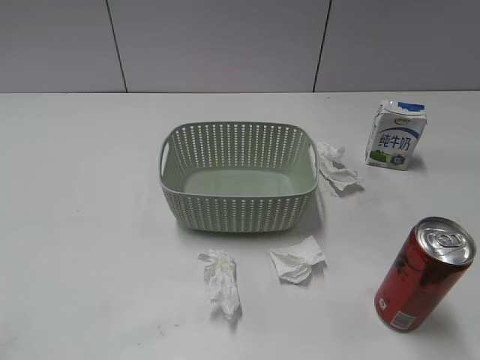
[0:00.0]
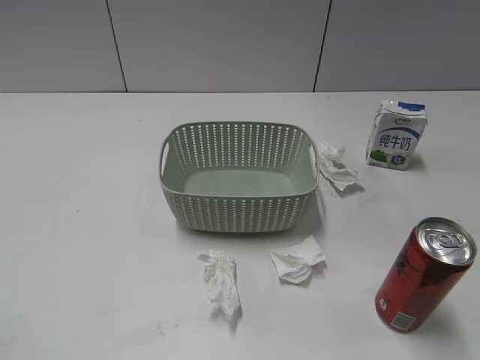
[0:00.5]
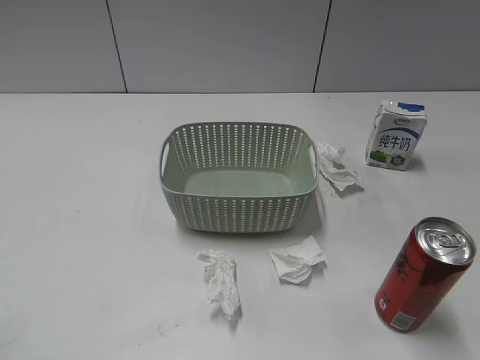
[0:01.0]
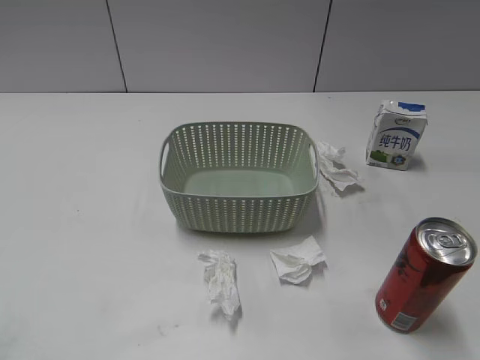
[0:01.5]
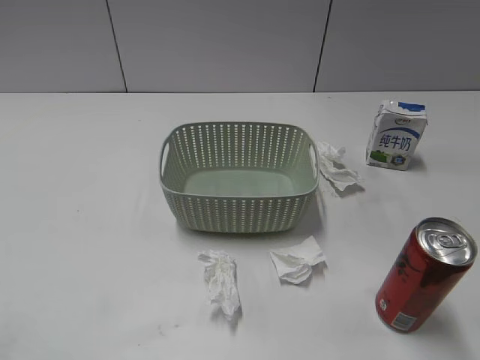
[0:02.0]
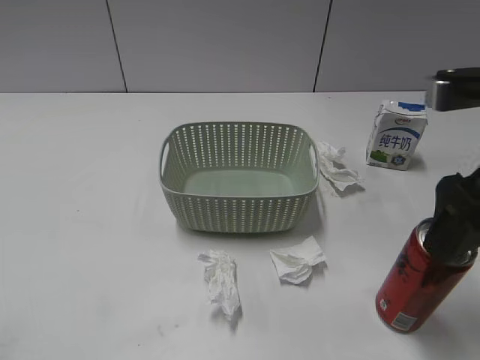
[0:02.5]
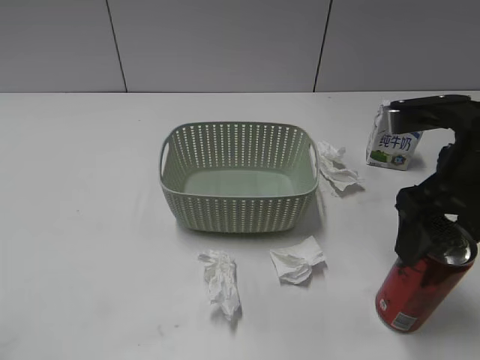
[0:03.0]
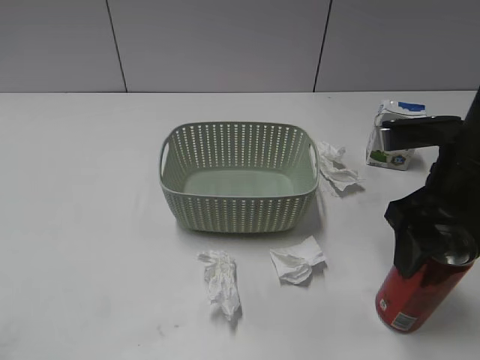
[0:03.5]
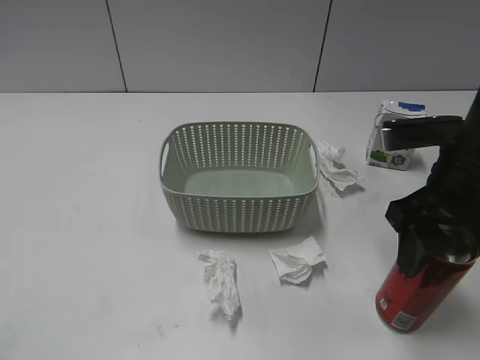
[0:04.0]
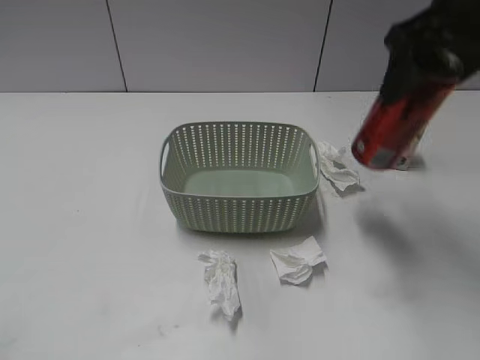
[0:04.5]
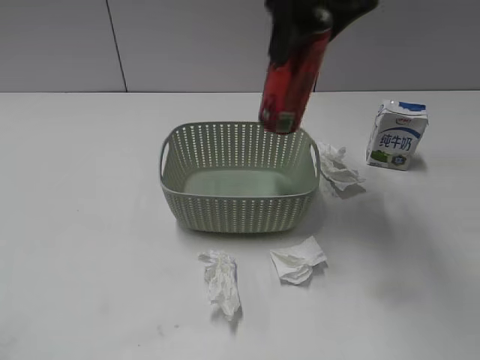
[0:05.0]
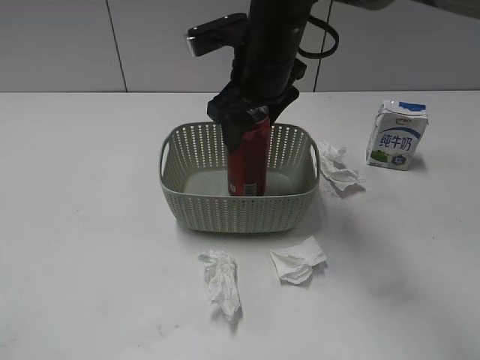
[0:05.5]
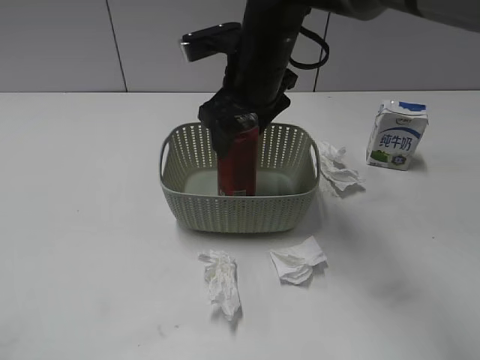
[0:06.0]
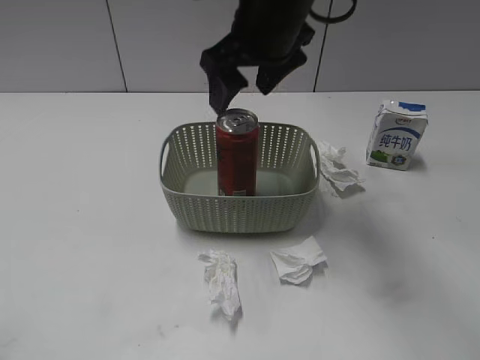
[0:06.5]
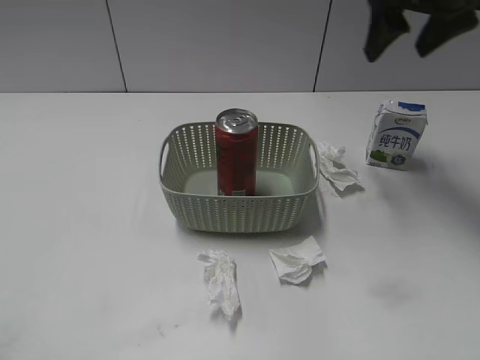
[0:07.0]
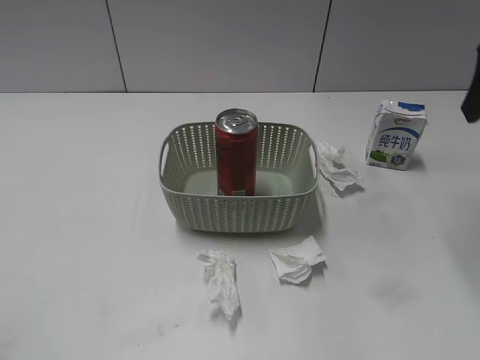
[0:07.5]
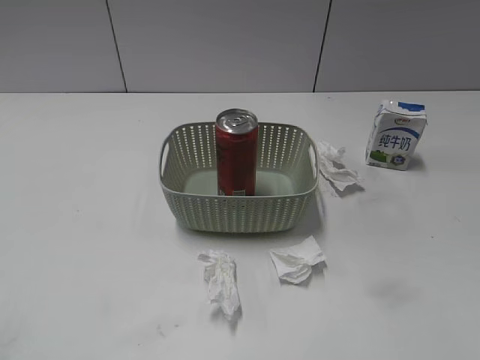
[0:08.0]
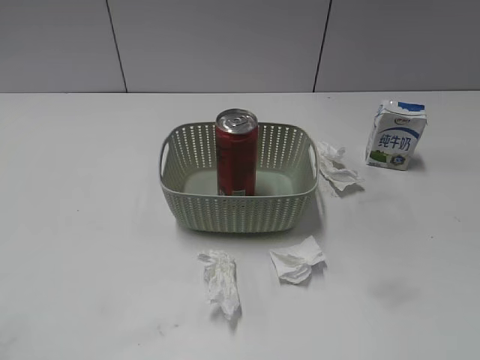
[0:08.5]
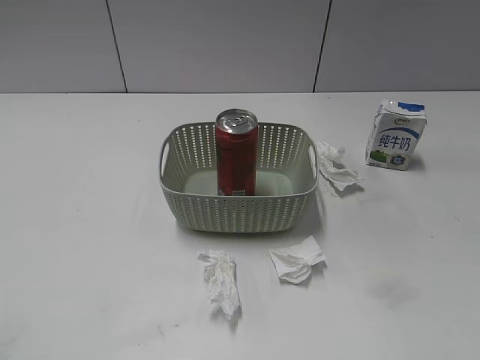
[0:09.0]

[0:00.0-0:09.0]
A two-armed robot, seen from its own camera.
Step, 0:02.5 to 0:04.0: Grasp the cola can with right gripper.
Step, 0:04.5 to 0:06.5: Place the cola can in the basket with right gripper.
0:02.0 to 0:04.5: The right gripper is displaced forward and to the left by roughly 20 cm, and closes.
0:04.5 to 0:07.0: The right gripper heads forward, covering approximately 10 cm, travels to the left and back again, roughly 15 cm each way, and opens up.
0:07.0 to 0:09.0: The right gripper travels backward by some 35 cm, and closes its fingers.

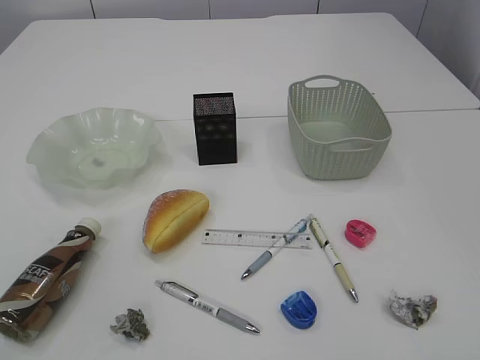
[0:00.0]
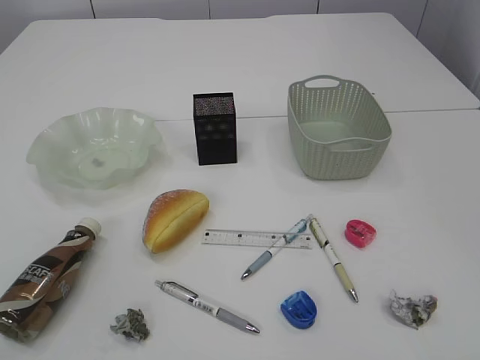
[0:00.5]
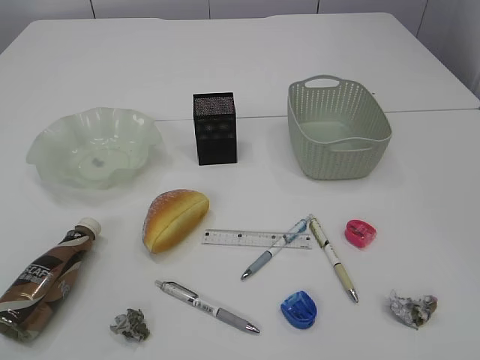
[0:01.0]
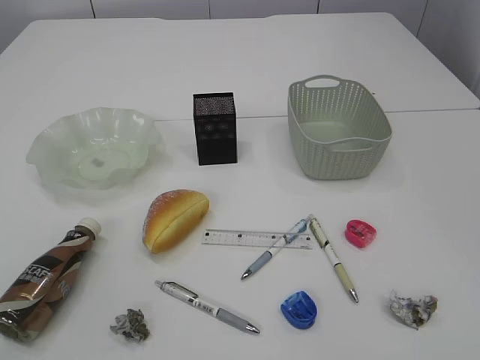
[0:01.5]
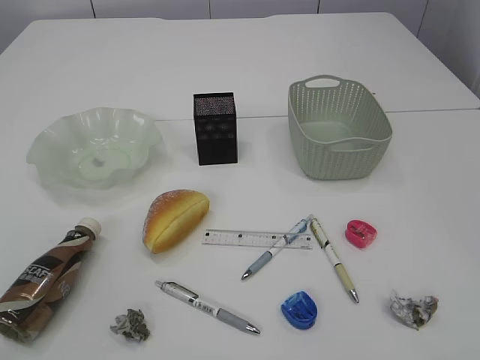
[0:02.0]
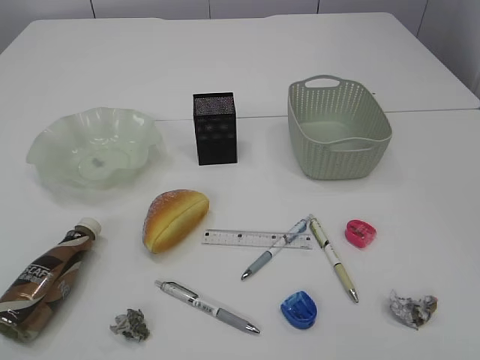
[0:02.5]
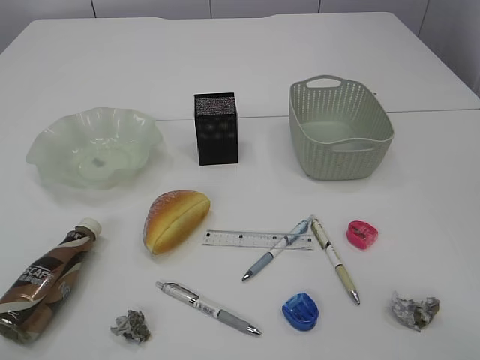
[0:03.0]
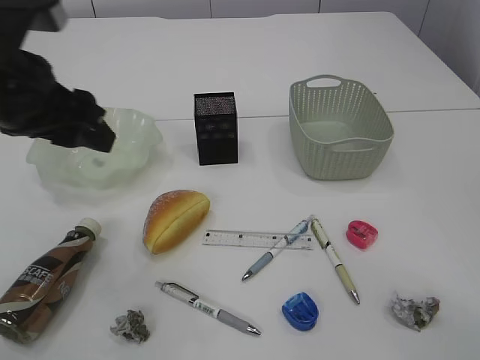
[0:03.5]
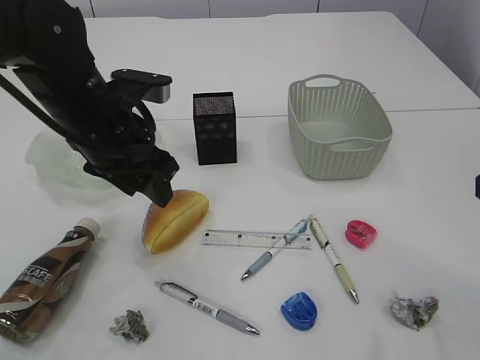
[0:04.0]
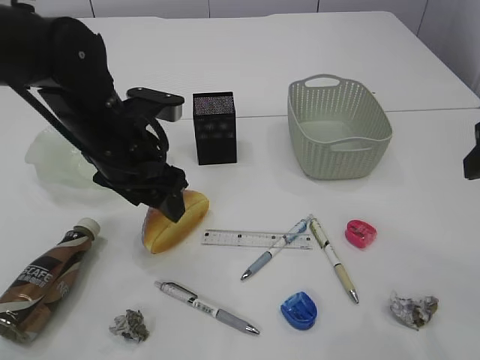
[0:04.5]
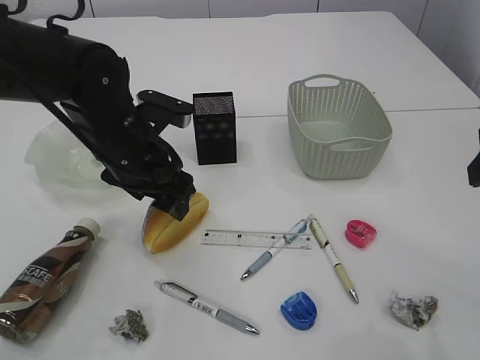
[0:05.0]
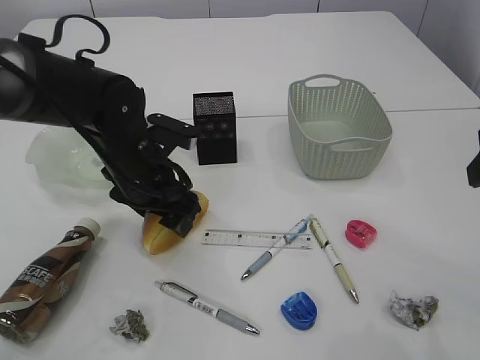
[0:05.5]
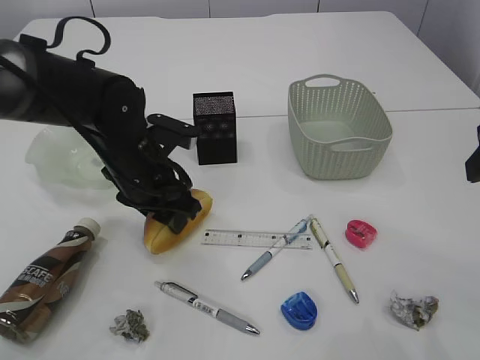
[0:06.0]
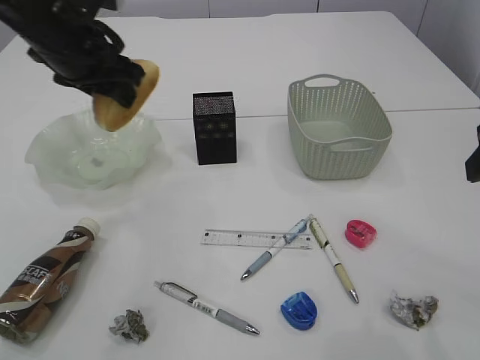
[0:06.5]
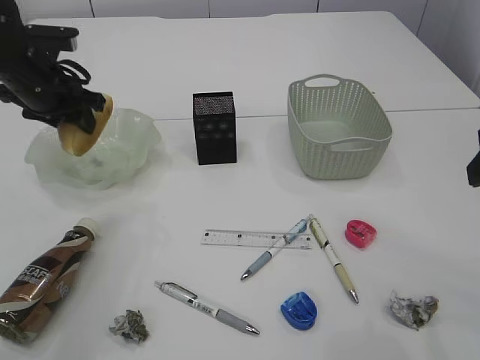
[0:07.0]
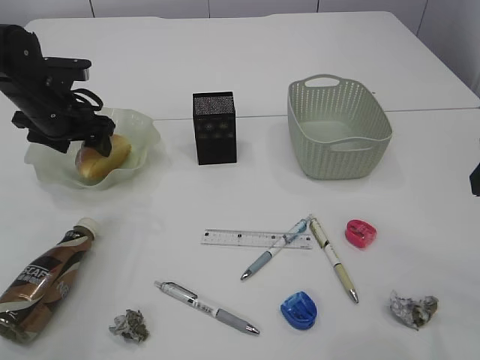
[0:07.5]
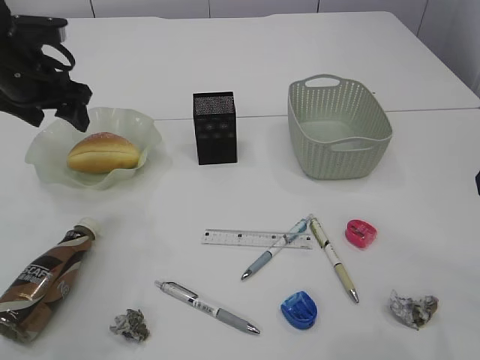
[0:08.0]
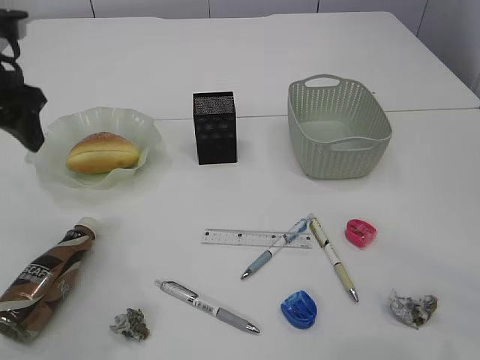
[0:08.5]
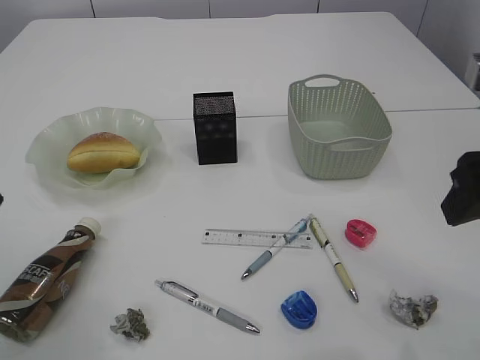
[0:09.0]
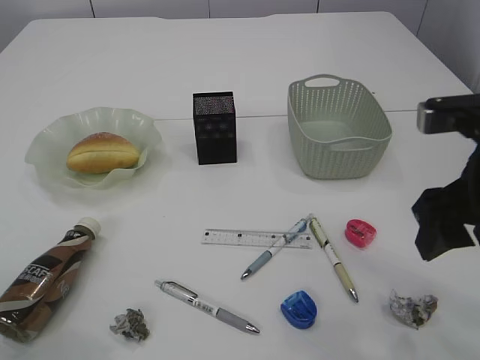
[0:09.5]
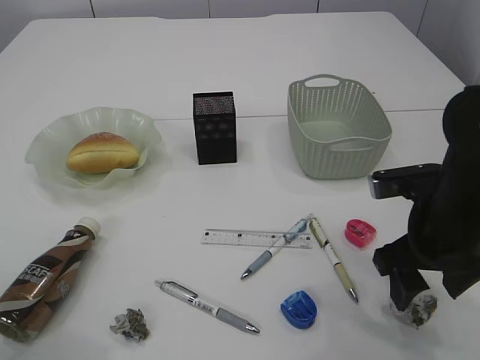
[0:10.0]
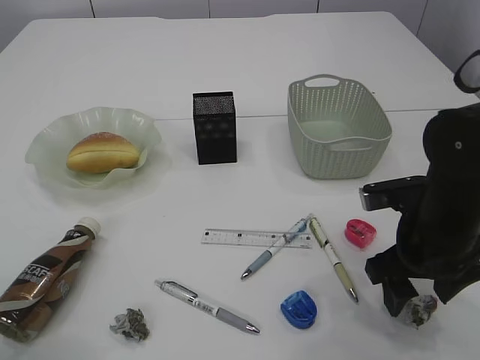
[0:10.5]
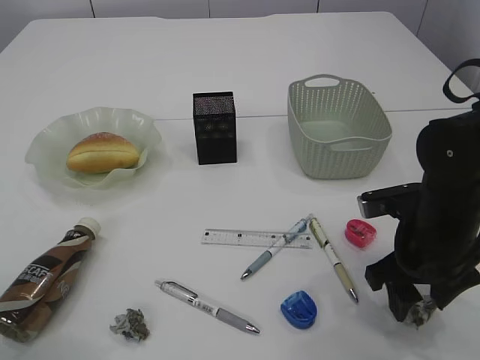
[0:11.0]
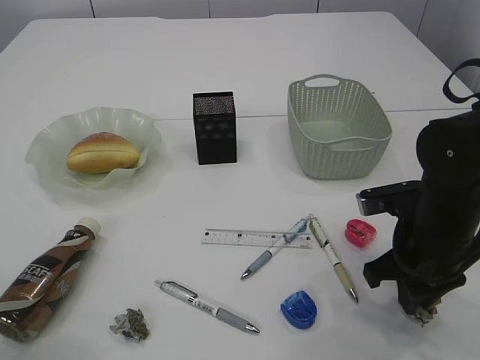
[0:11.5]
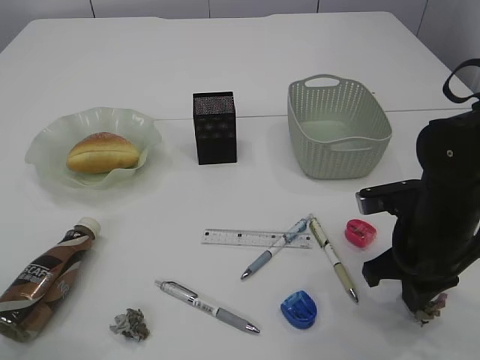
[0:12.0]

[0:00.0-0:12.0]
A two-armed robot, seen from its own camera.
Step, 0:06.5 to 0:08.0: place the bread in the plate.
0:02.0 to 0:04.0: The left gripper is displaced forward and to the right by roughly 40 cm. Meanwhile the right gripper travels forward by approximately 20 cm.
0:04.0 to 0:06.0: The left gripper is displaced downward by some 5 cm, and opens, then closes once more.
0:06.0 to 0:08.0: The left gripper travels to the left, upward and forward by some 20 cm, and opens up.
0:08.0 to 0:10.0: The left gripper heads backward, covering approximately 20 cm. Meanwhile the right gripper is displaced downward and to the left by some 15 cm.
0:10.0 to 0:12.0: The right gripper closes its fingers.

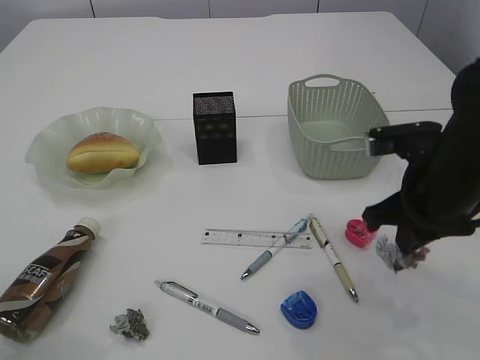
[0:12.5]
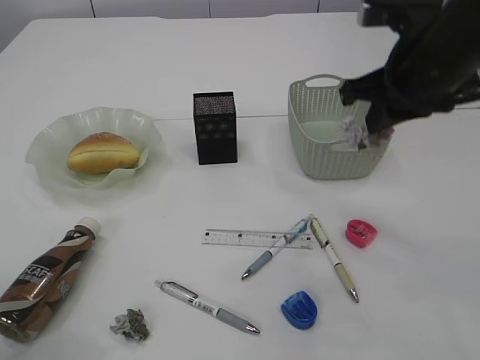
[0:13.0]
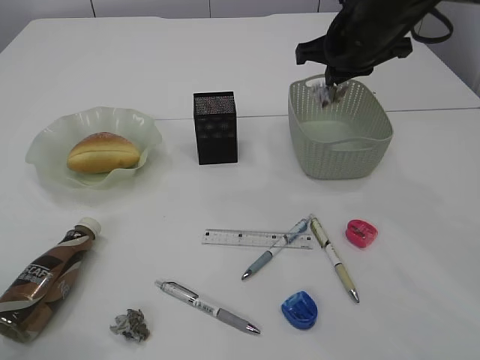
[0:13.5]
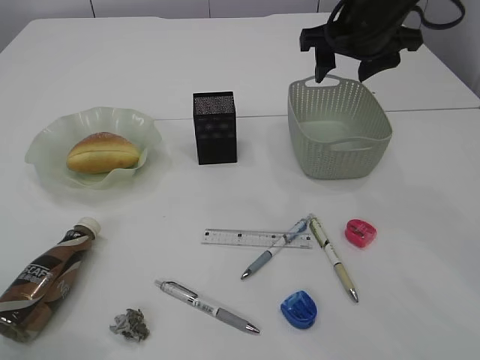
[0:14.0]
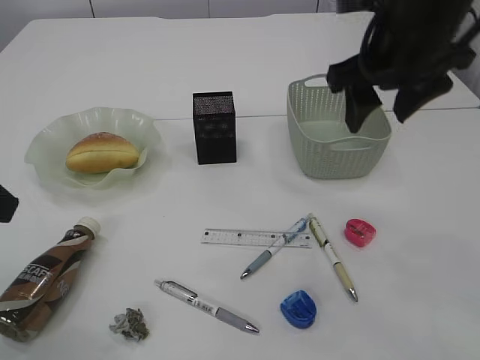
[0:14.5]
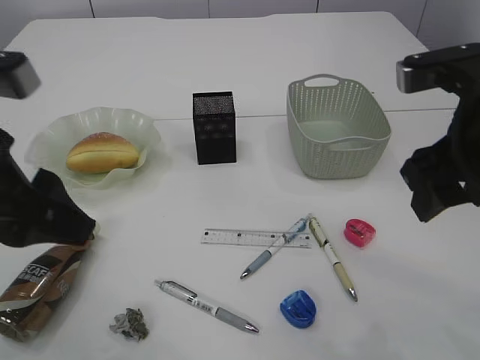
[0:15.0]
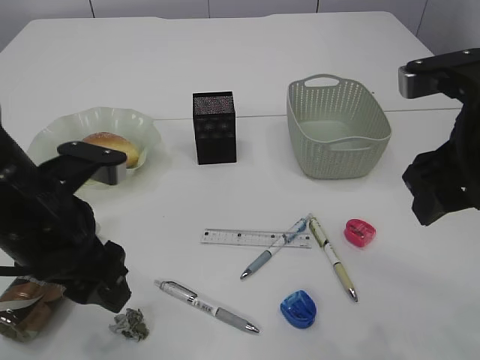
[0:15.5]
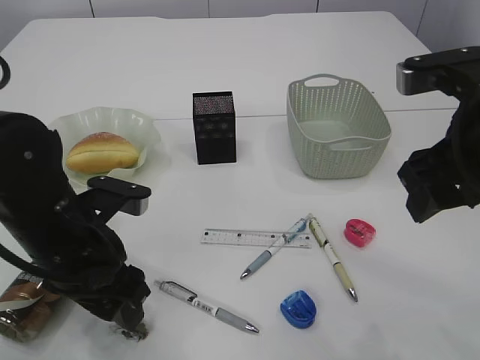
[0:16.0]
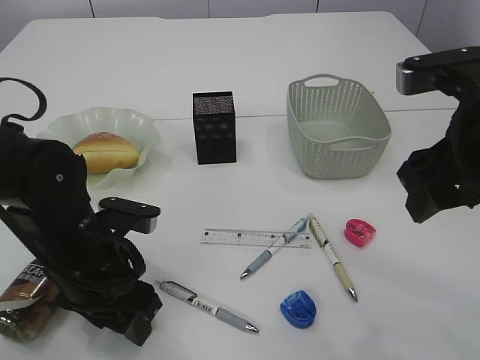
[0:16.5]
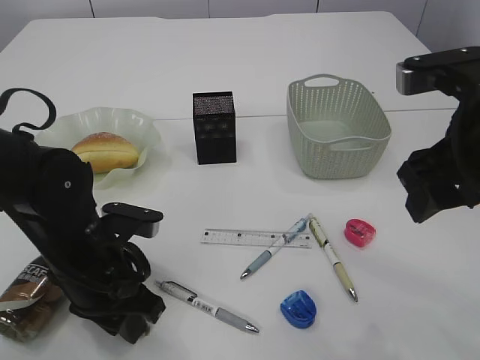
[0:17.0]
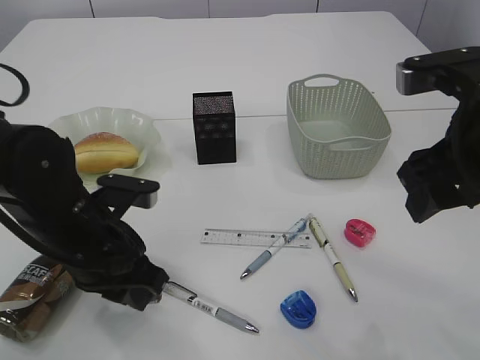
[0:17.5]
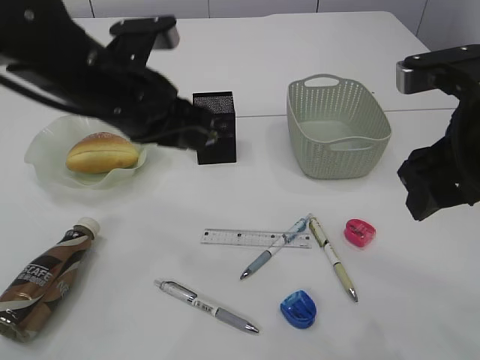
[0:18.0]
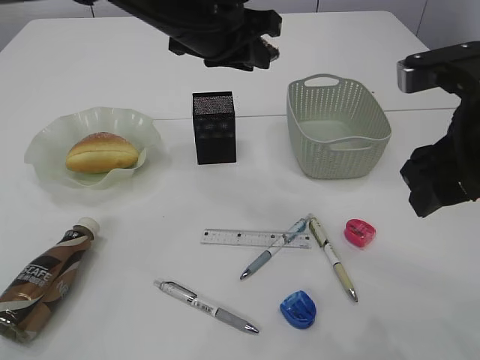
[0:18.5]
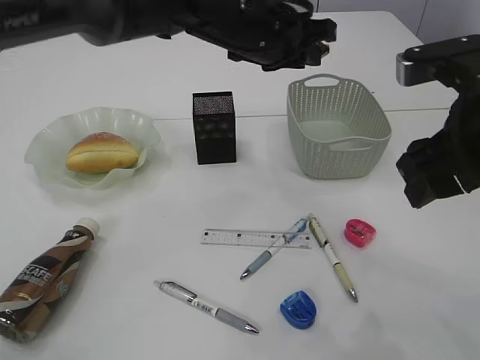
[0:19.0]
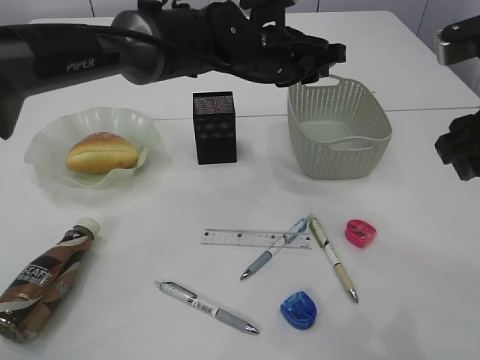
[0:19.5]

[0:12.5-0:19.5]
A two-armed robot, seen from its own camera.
Step, 0:13.0 to 0:13.5: Place the waste paper in the basket.
Step, 0:14.0 to 0:17.5: Pick up the waste paper.
0:12.5 to 0:14.5: The right gripper is displaced upward and forward by some 15 cm, and opens up.
0:14.5 to 0:16.0: The left gripper moves downward and to the right, approximately 20 cm. The right gripper travels backward by approximately 10 cm.
0:16.0 to 0:17.5: The left gripper closes up.
0:17.5 to 0:19.5: The left gripper goes roughly 25 cm forward, to the right and upward.
